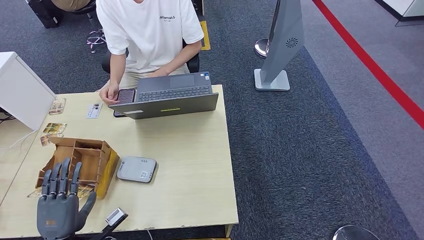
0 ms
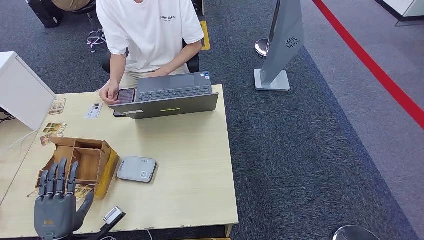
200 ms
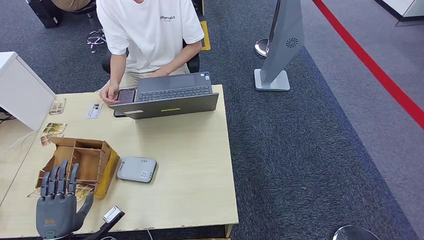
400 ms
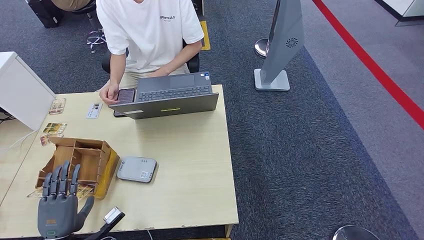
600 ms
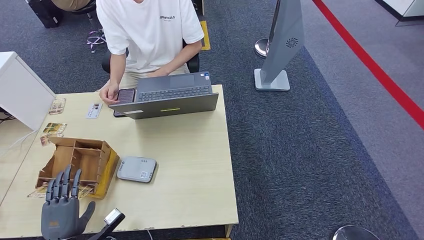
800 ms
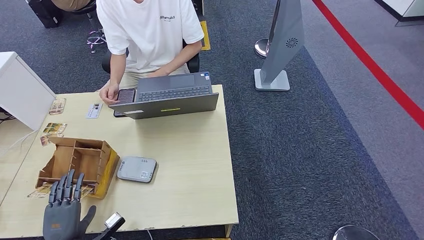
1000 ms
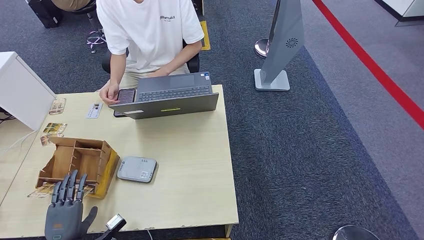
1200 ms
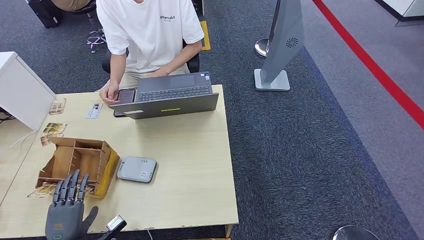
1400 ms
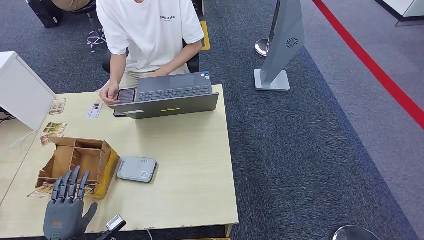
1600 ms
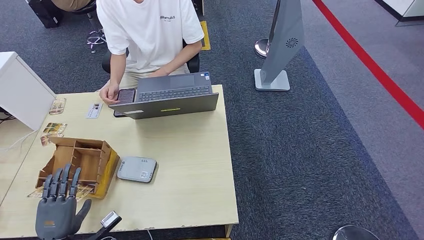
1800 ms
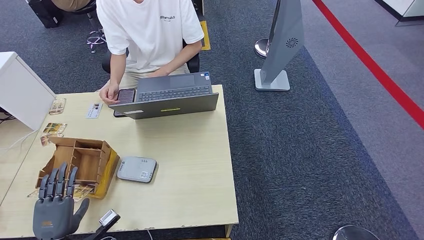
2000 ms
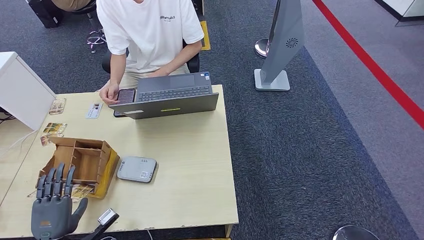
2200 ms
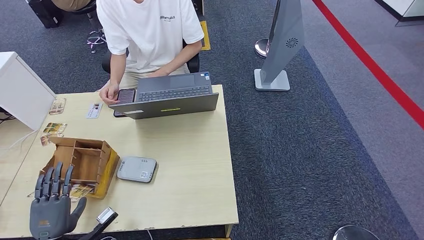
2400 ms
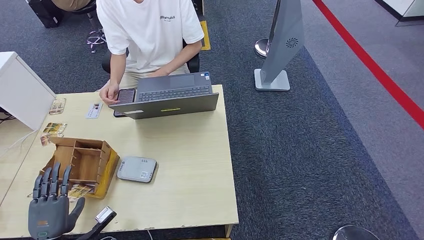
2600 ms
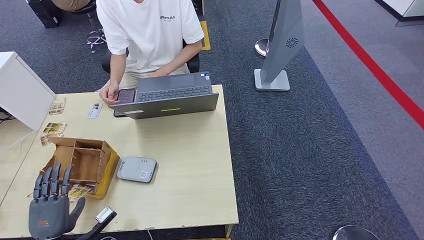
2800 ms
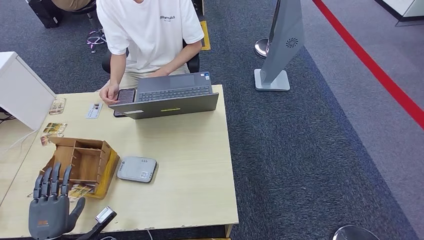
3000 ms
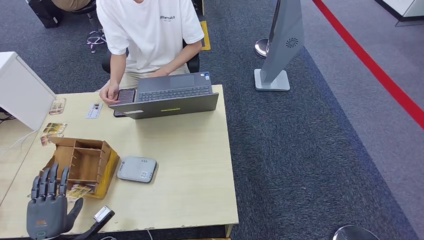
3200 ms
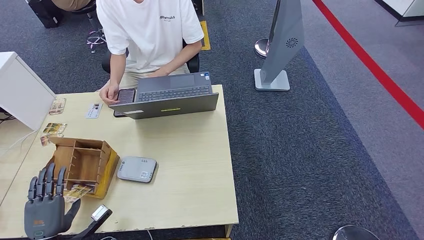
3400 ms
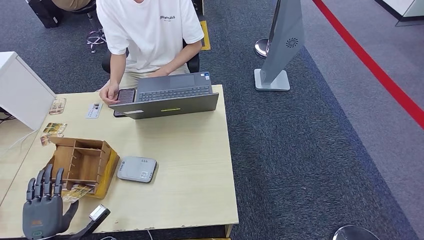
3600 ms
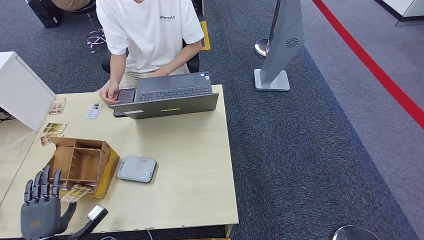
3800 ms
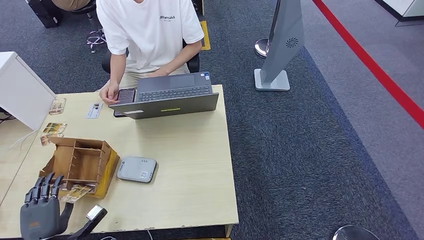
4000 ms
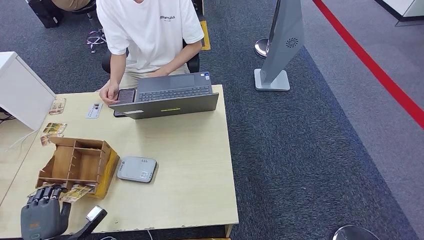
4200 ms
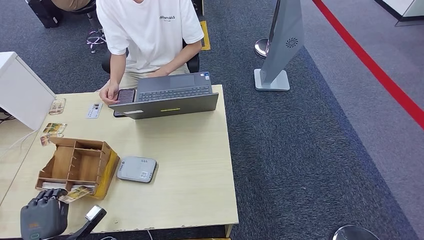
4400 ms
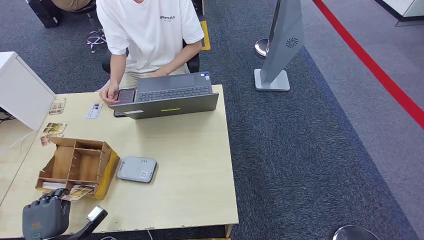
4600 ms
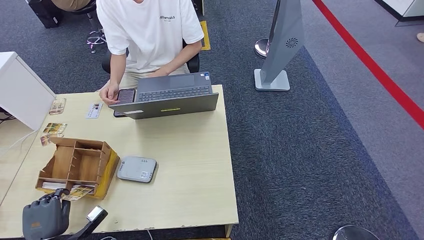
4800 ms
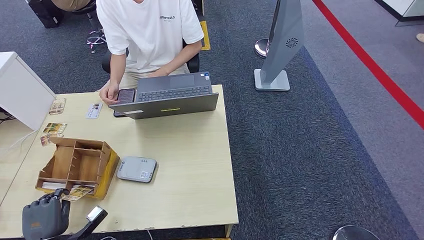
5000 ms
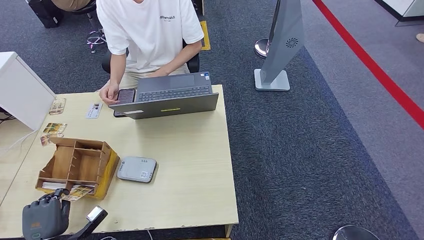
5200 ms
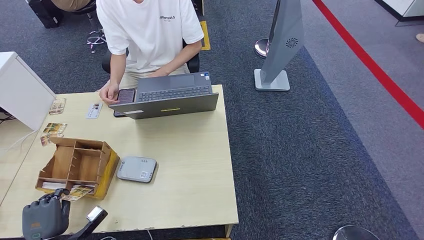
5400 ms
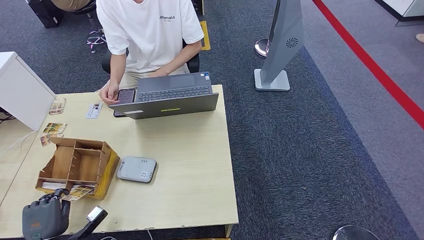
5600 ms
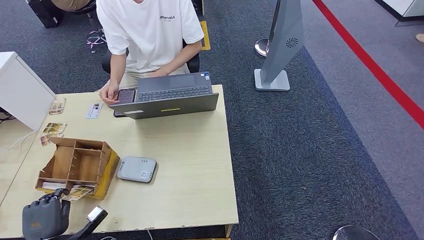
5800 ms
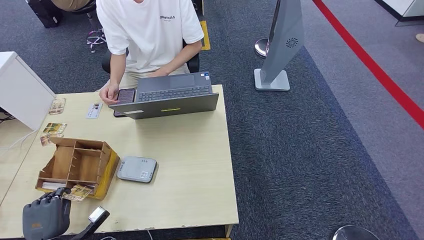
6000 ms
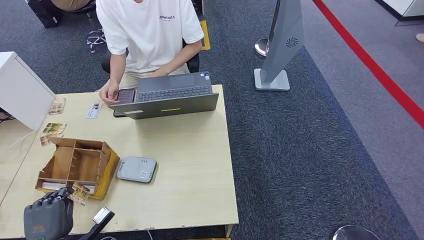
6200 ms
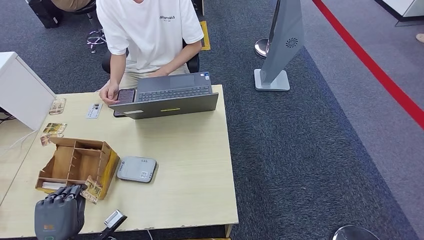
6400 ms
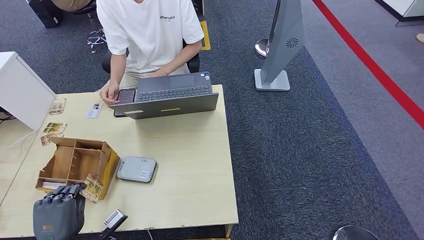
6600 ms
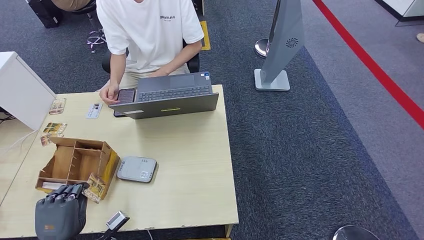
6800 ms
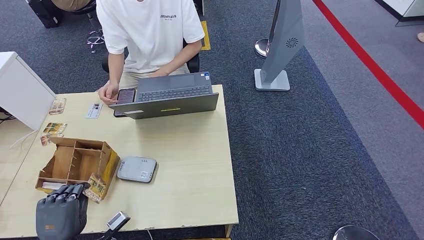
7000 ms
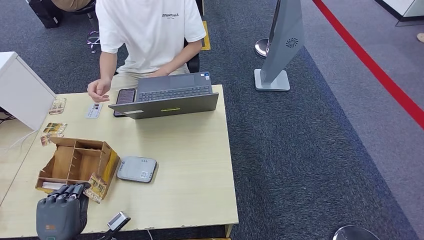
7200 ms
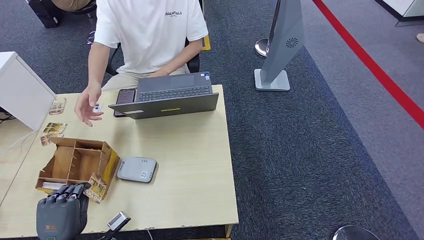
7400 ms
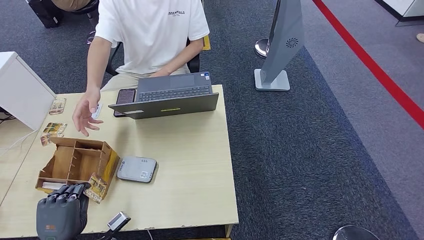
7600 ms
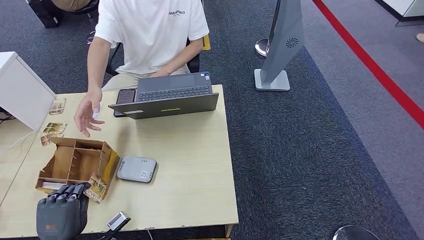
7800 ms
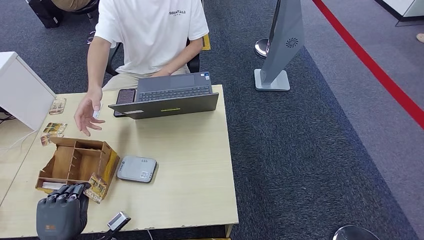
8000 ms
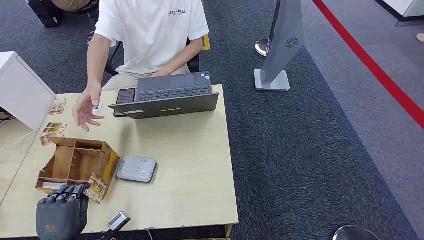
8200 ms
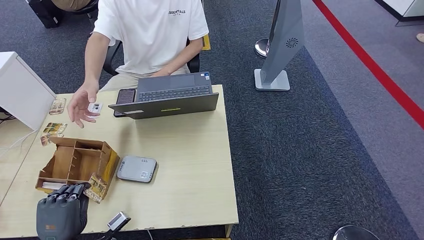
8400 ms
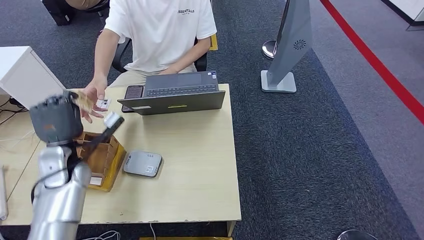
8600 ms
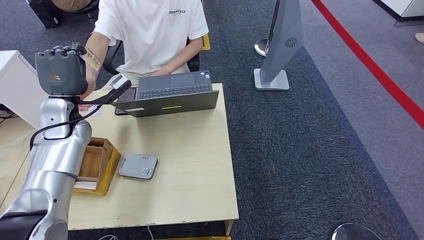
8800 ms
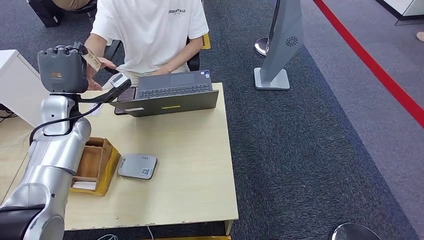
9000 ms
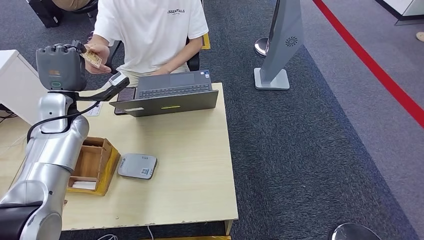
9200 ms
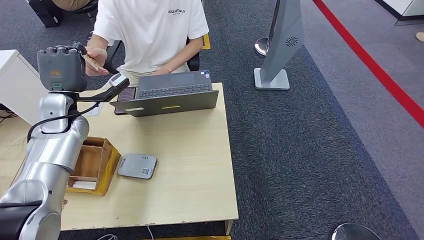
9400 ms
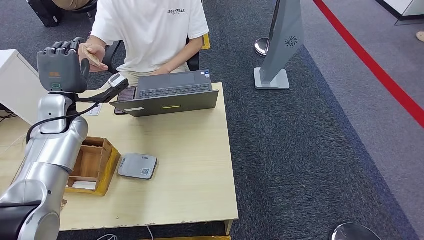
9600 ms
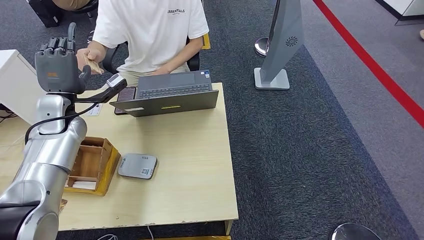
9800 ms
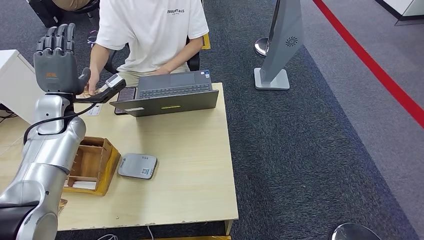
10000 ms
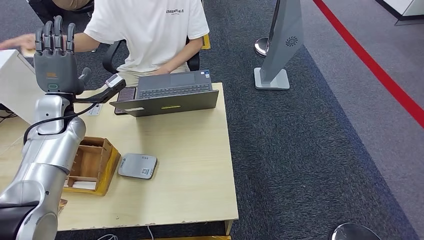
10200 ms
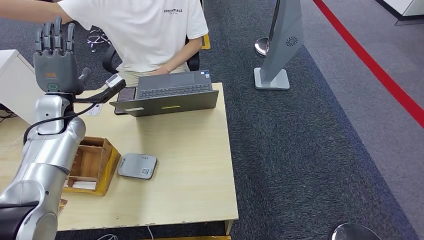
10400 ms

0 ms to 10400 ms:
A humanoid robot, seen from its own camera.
Step, 0 ms to 5200 ms: Pick up the room key from the key card box.
Step, 5400 ms to 10400 ms: Hand the room key to the person.
0 ms to 1400 ms: The left hand shifts by approximately 5 cm.
1400 ms to 4400 ms: The hands move only a little.
4400 ms to 6000 ms: Both hands stay about where they are.
6000 ms to 7400 ms: The left hand shifts about 10 cm to the right and upward.
7400 ms to 9000 ms: The left hand goes some 35 cm forward and upward.
9000 ms to 10400 ms: The hands move only a little.
